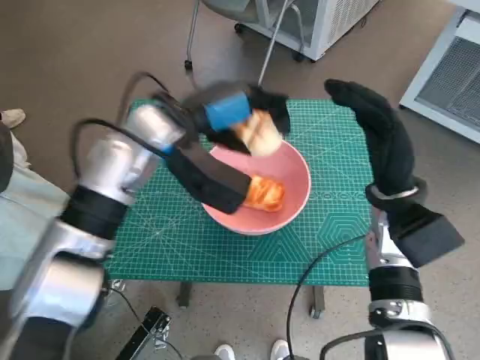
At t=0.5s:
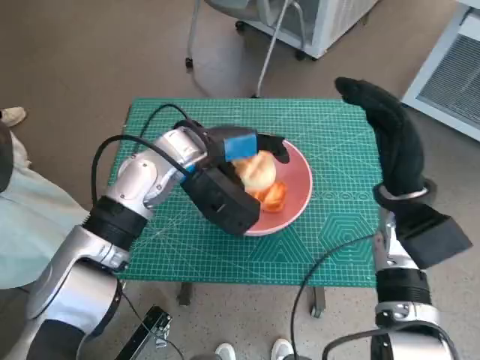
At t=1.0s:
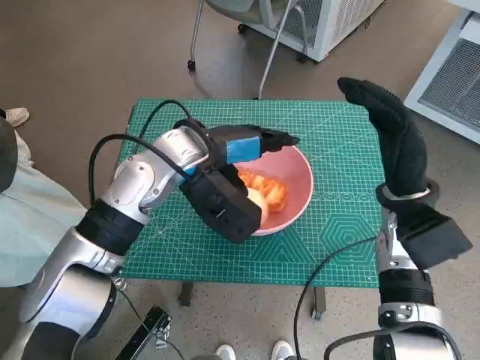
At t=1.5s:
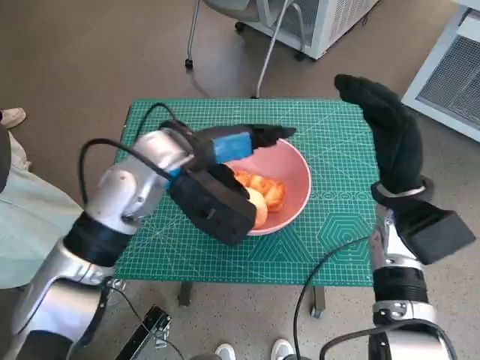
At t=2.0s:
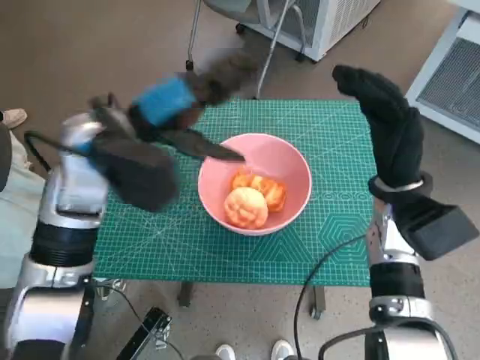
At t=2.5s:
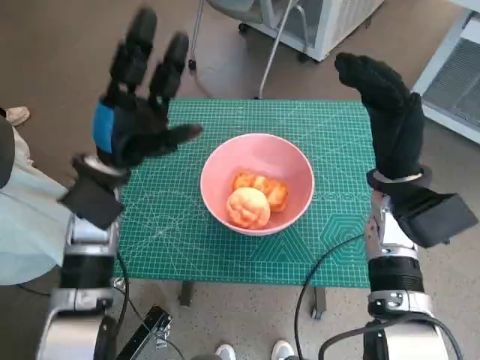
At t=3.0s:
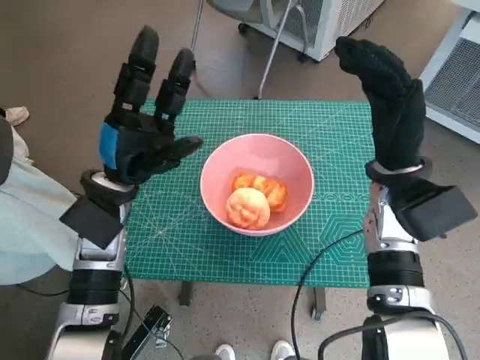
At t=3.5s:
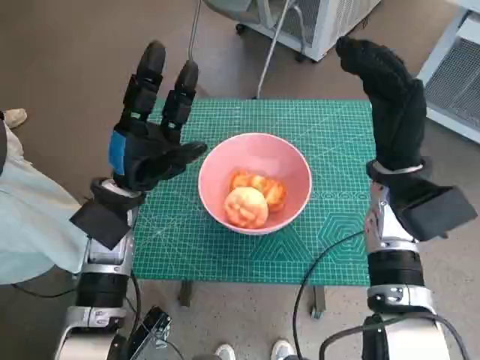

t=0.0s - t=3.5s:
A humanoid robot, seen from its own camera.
Task of the whole recording: Push the bowl to the center of the table and put the bread into the bowl.
t=0.0s - t=2.0s: The left hand moves about 5 cm.
t=2.0s - t=3.5s: The left hand is displaced downward by about 10 cm.
